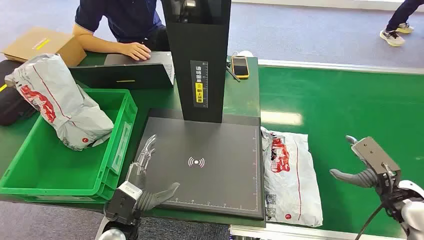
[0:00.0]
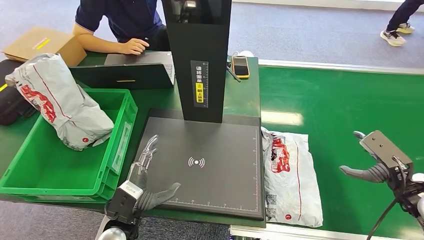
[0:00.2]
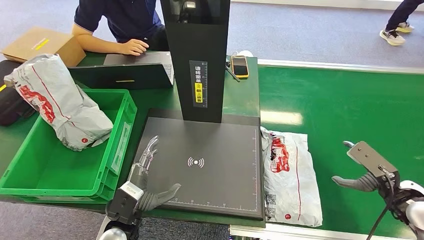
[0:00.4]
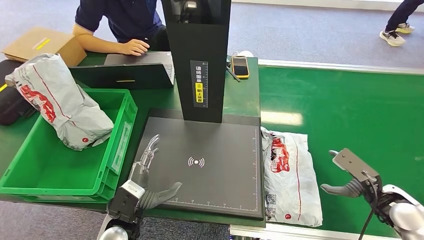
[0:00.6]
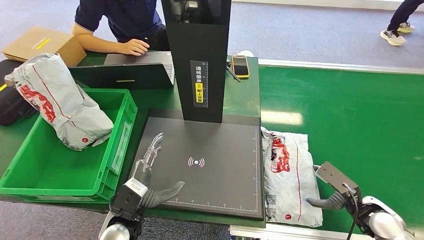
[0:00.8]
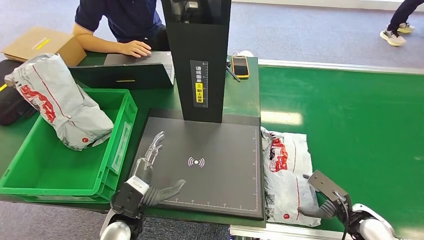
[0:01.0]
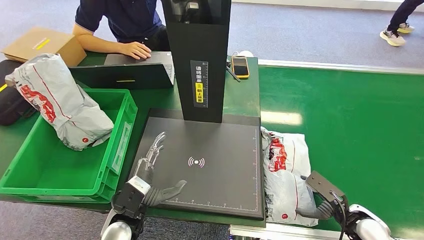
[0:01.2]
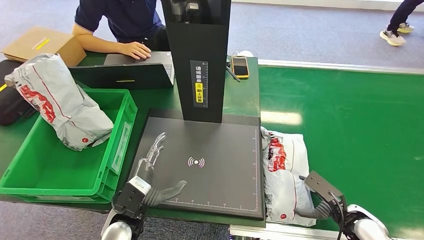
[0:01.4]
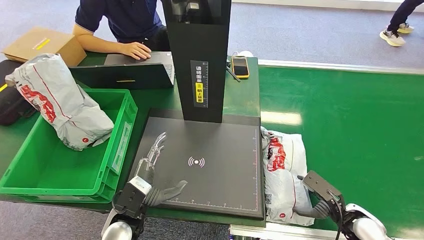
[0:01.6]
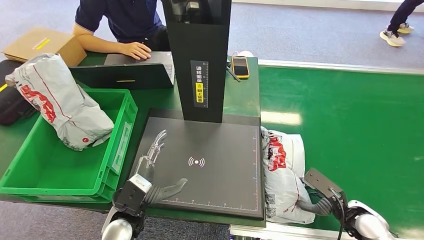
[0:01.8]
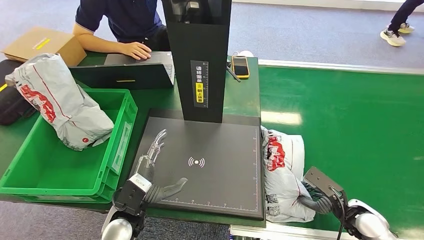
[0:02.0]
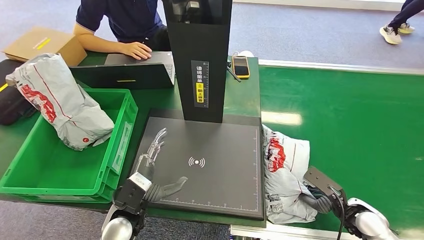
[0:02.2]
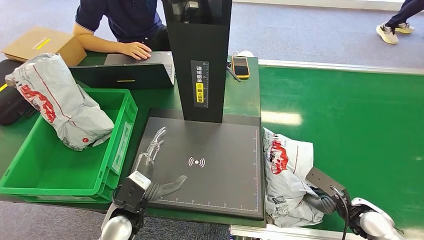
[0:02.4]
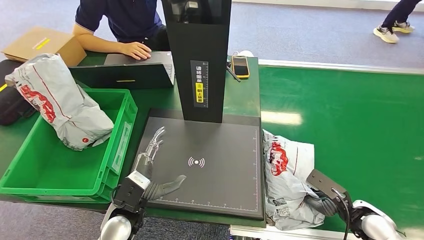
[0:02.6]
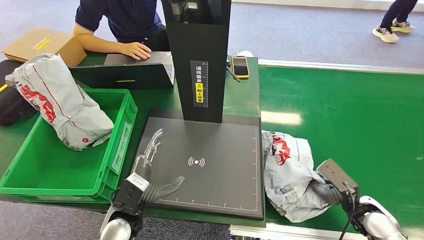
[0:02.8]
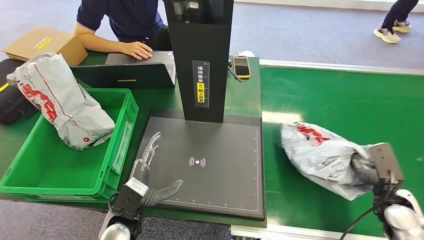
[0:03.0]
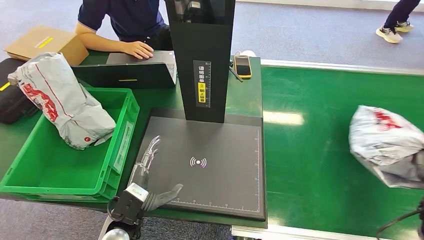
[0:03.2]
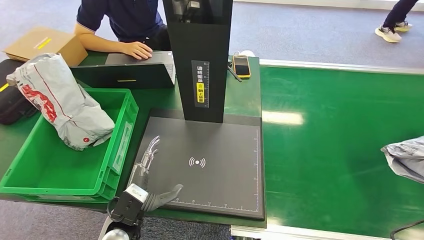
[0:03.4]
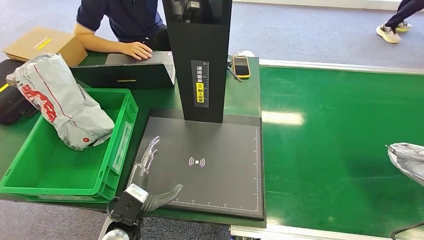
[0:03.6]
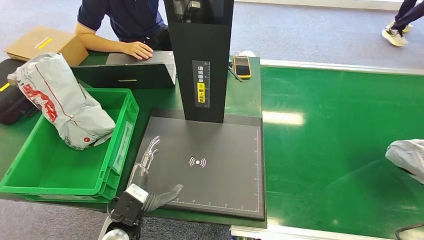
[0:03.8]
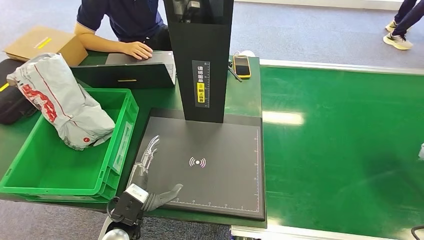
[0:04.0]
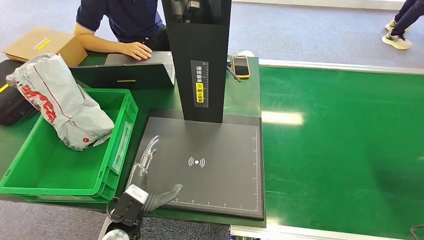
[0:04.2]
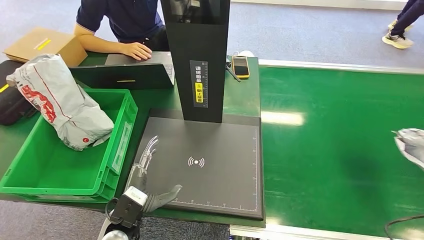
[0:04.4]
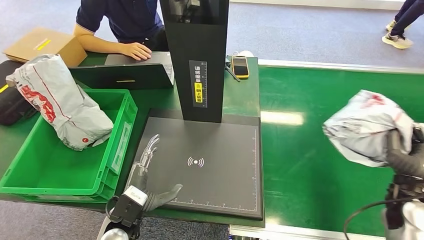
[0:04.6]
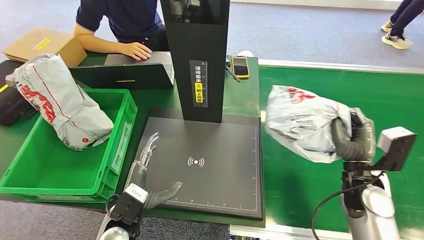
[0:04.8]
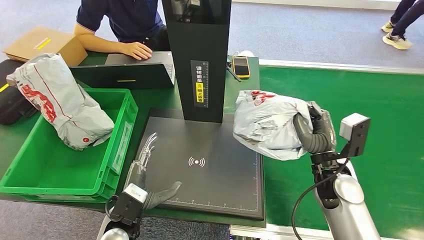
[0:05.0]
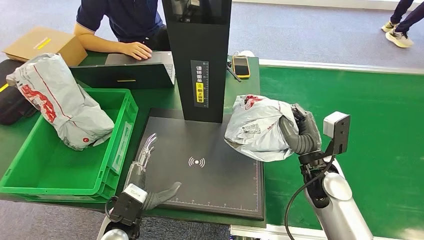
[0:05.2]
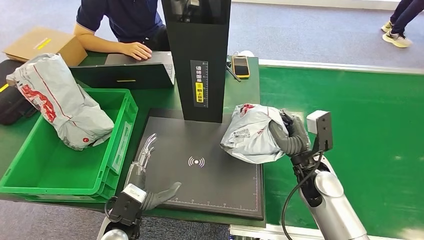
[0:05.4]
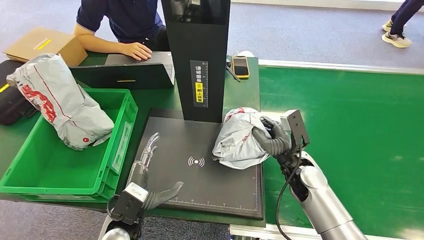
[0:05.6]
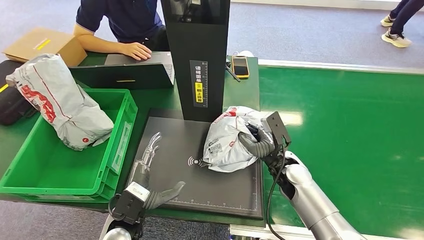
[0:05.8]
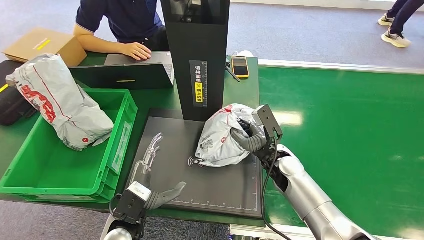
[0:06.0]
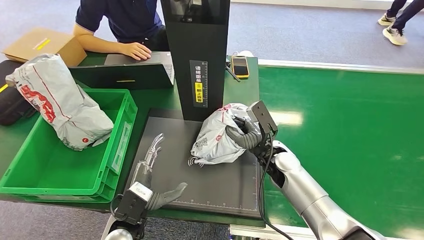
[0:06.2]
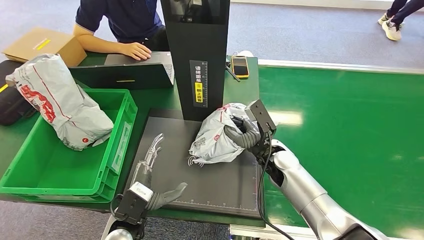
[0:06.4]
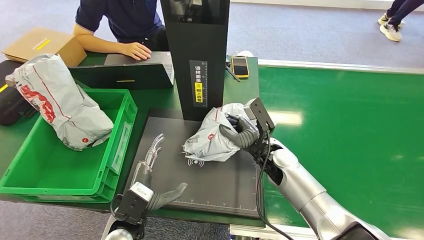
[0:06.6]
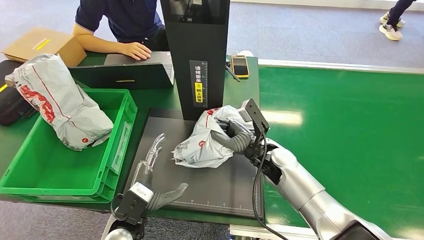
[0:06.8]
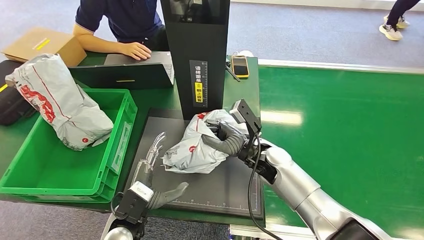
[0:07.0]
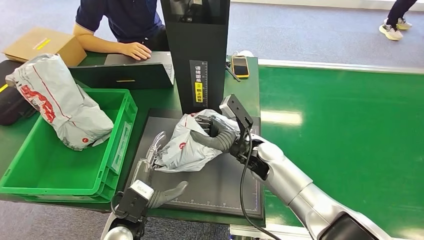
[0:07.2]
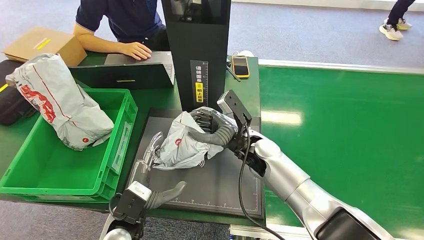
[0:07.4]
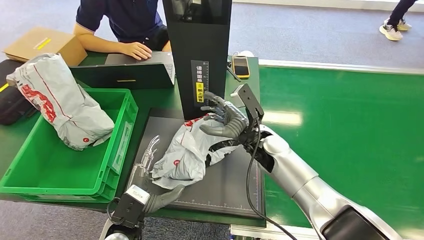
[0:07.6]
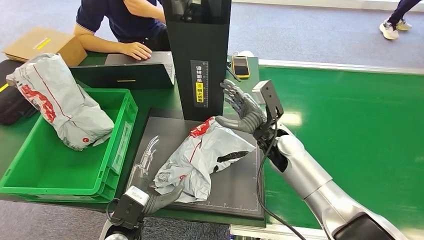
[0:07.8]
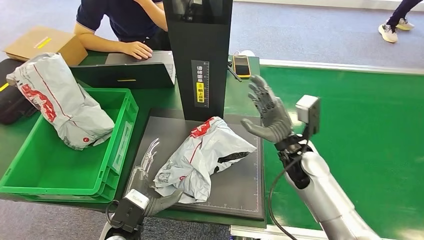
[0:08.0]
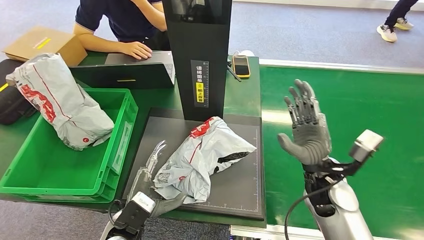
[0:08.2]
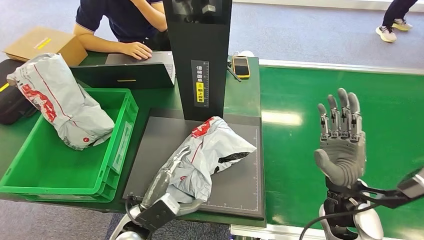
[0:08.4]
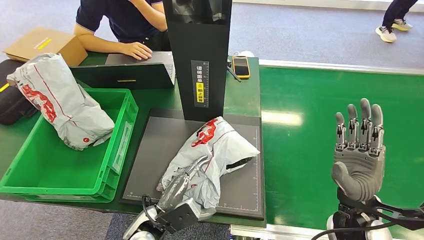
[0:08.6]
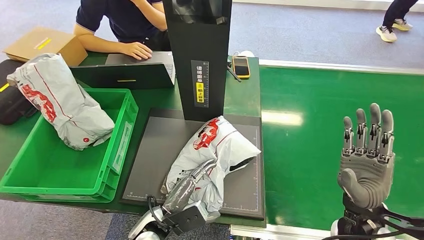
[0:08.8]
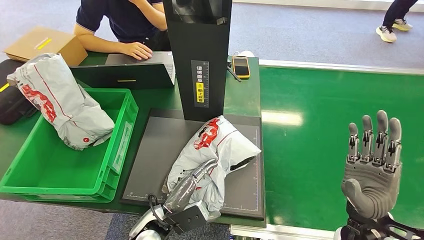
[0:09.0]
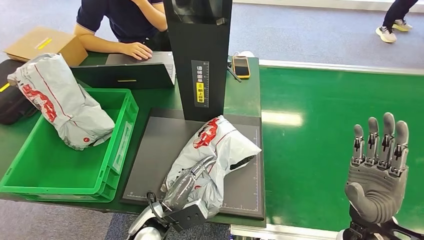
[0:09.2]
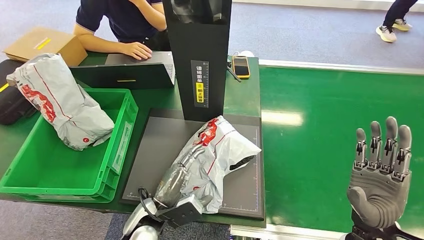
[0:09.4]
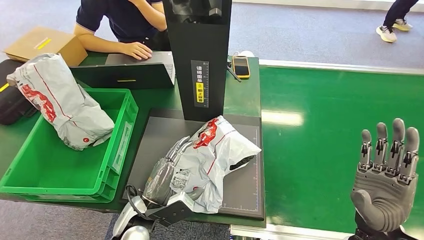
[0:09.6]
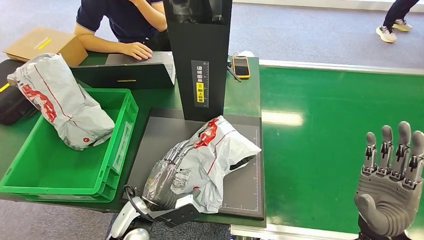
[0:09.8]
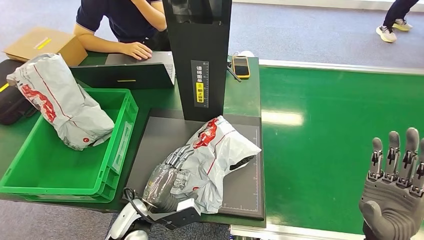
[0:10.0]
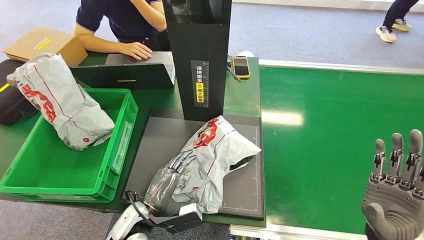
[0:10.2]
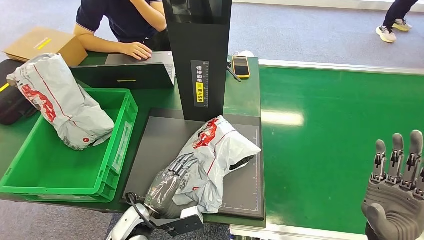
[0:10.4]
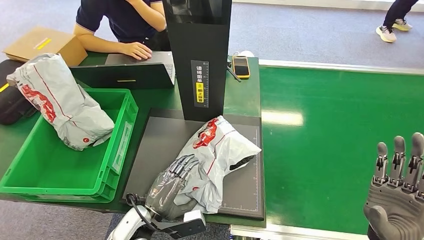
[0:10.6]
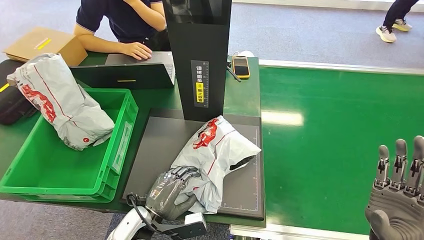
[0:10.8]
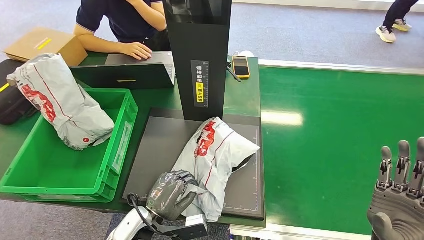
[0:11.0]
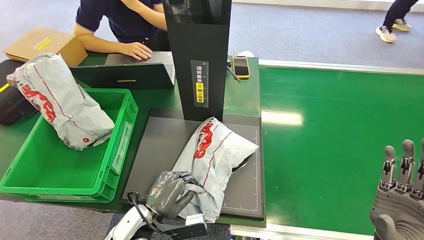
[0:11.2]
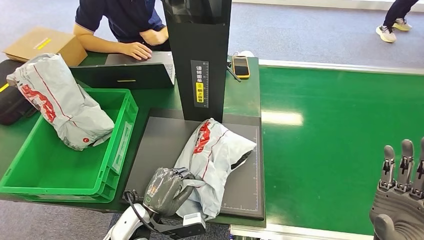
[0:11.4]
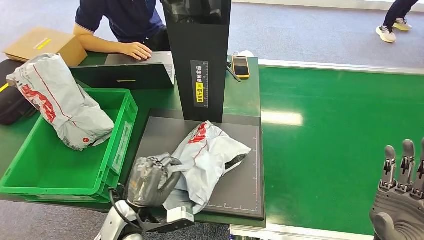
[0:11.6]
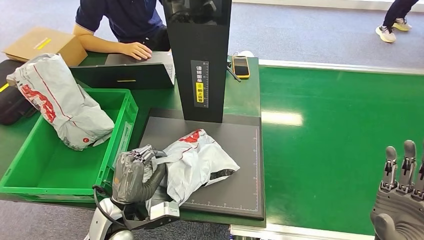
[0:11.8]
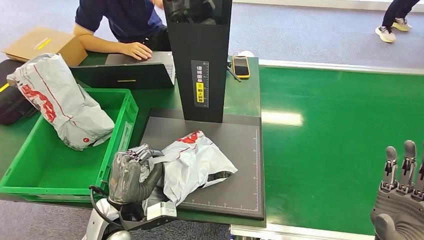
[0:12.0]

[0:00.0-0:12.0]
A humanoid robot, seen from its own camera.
Task of the whole recording: Weigh the package on the weighing device and place it in the left basket.
Step, 0:00.0 to 0:03.2: Pick up the package from the conveyor belt.
Step, 0:03.6 to 0:08.0: Place the package onto the inbound machine.
0:01.6 to 0:03.0: The right hand is displaced to the right and upward by approximately 10 cm.
0:03.0 to 0:04.4: The right hand travels to the right by approximately 10 cm.
0:04.4 to 0:06.0: The right hand goes some 35 cm to the left.
0:06.0 to 0:07.6: The right hand moves upward and to the left, approximately 5 cm.
0:10.4 to 0:12.0: The left hand goes approximately 5 cm upward.

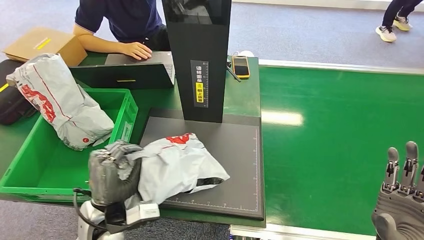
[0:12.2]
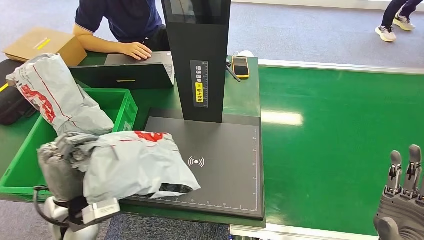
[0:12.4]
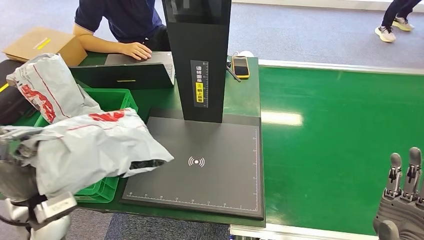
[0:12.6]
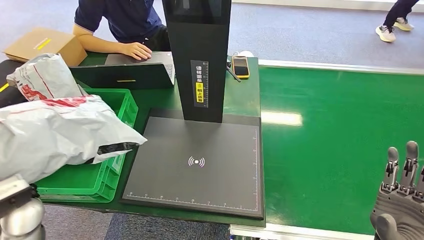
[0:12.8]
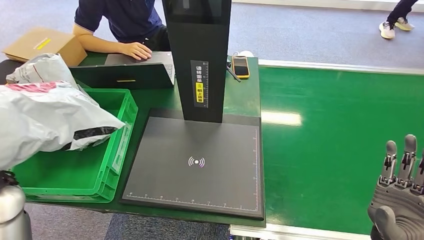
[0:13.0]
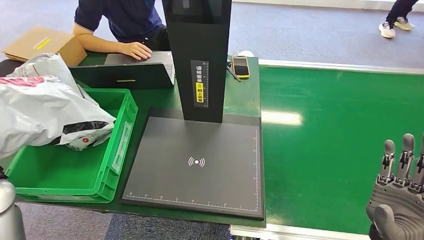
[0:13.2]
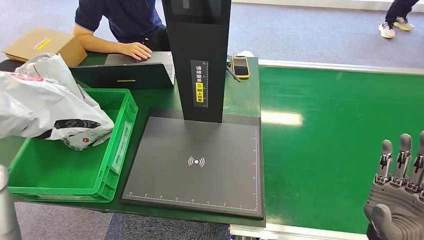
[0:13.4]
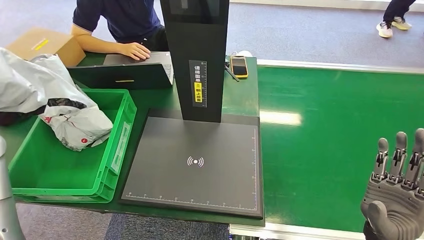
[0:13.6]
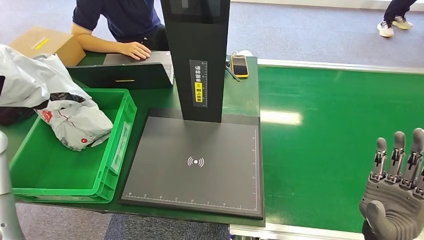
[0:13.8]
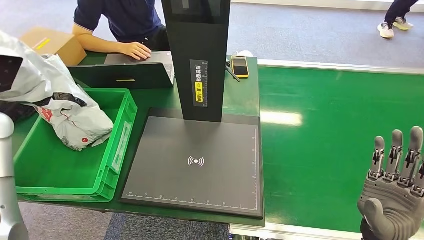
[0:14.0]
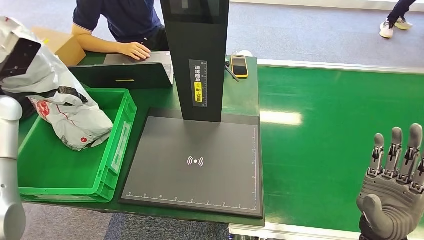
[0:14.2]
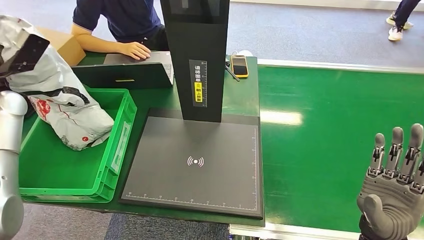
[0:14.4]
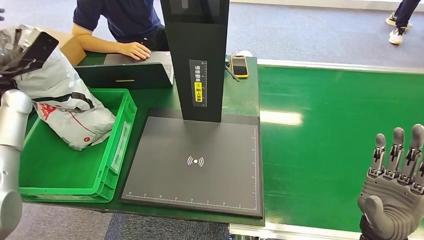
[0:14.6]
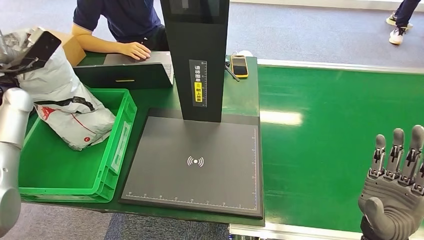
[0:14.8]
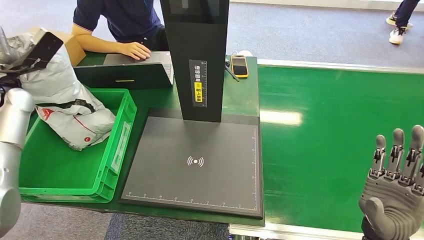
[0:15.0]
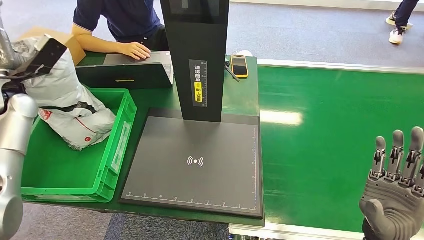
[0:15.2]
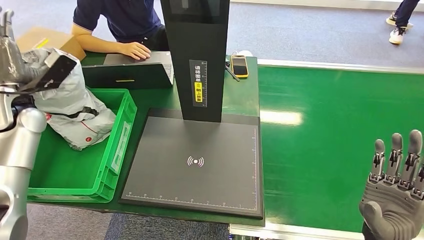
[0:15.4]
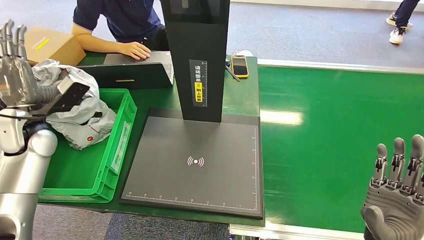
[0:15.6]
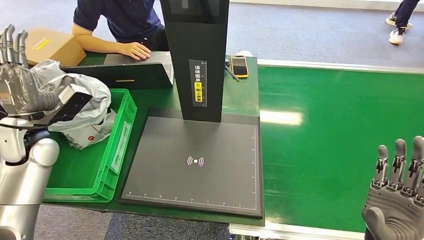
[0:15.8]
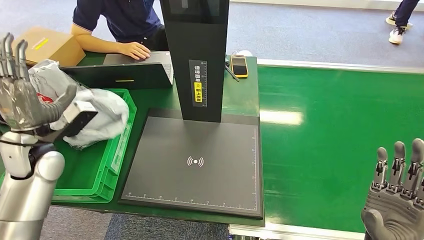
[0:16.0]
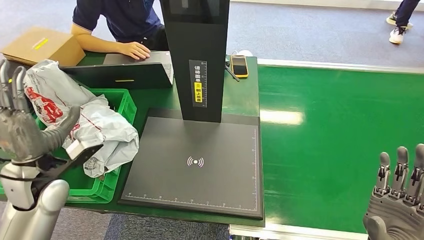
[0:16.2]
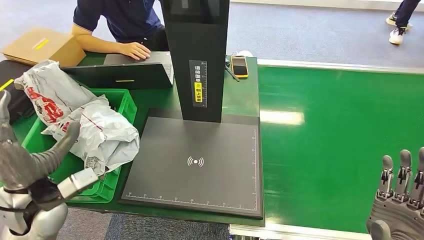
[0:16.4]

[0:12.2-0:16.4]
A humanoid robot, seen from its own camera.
Task of the whole recording: Weigh the package on the weighing device and place it in the left basket.
Step, 0:12.8 to 0:16.2: Place the package into the parcel locker.
0:13.6 to 0:15.0: The left hand moves forward, roughly 10 cm.
0:15.0 to 0:16.4: The left hand shifts roughly 25 cm backward, to the right and downward.
